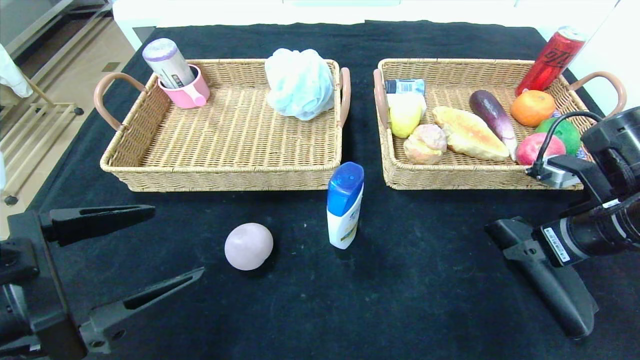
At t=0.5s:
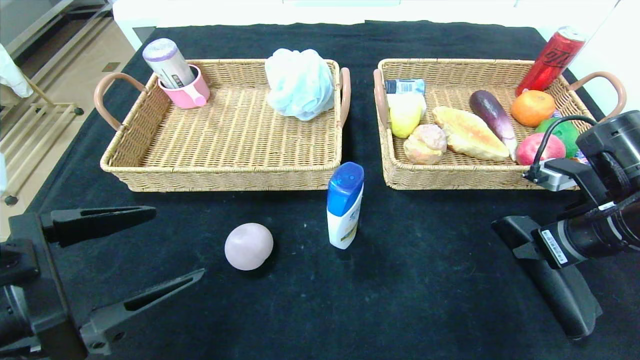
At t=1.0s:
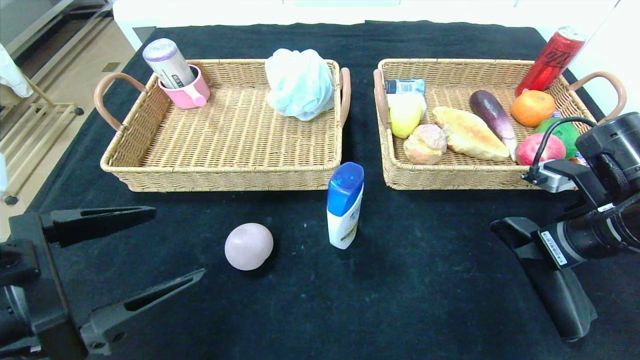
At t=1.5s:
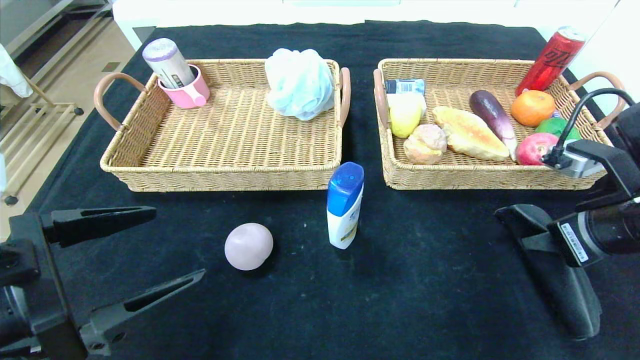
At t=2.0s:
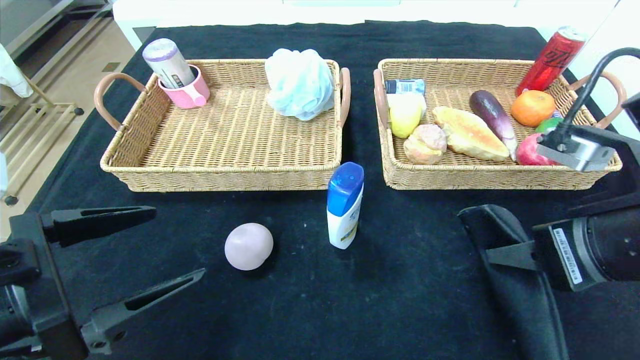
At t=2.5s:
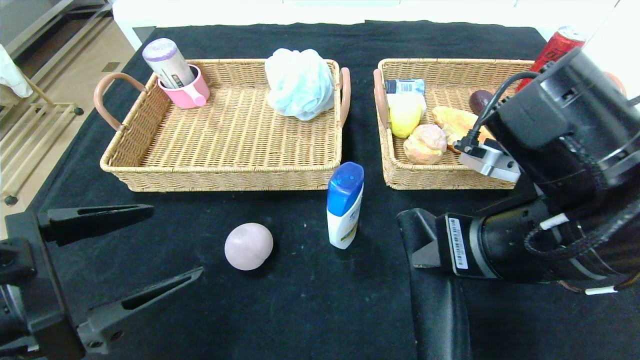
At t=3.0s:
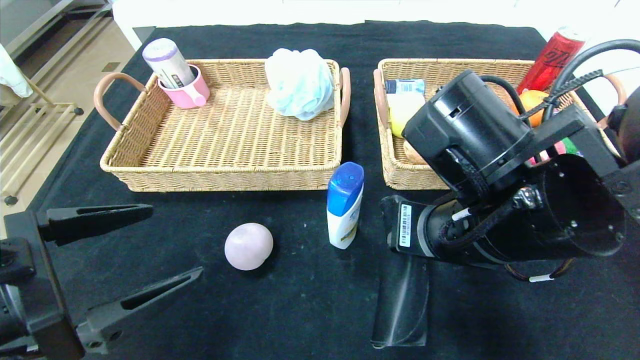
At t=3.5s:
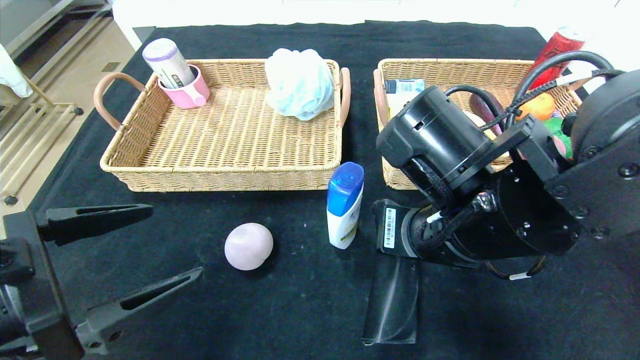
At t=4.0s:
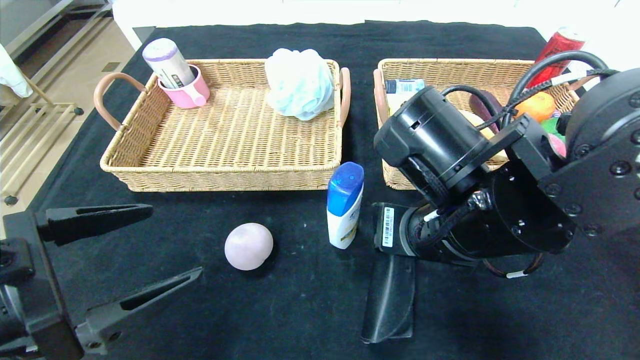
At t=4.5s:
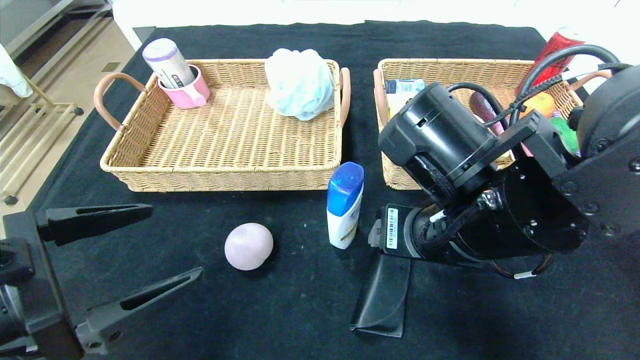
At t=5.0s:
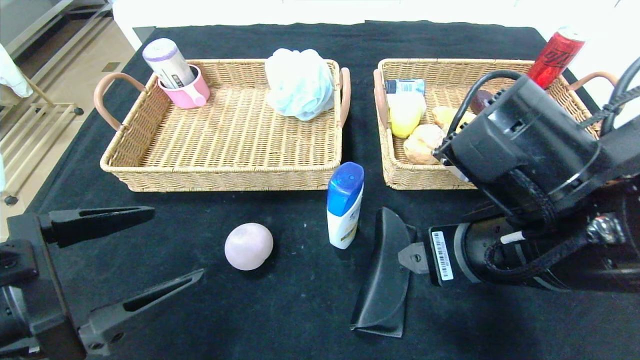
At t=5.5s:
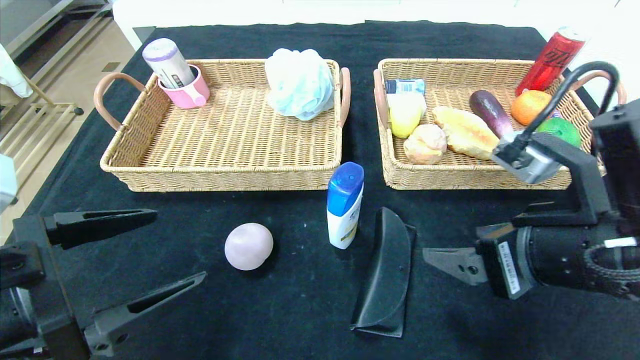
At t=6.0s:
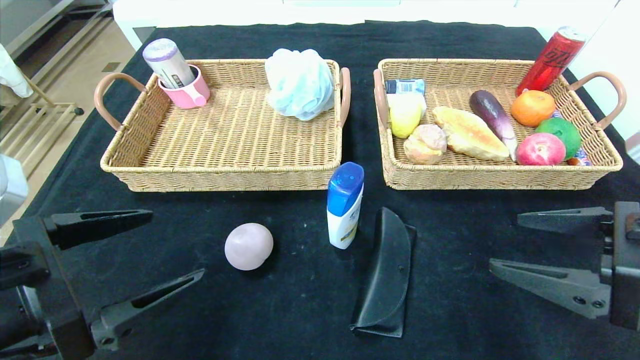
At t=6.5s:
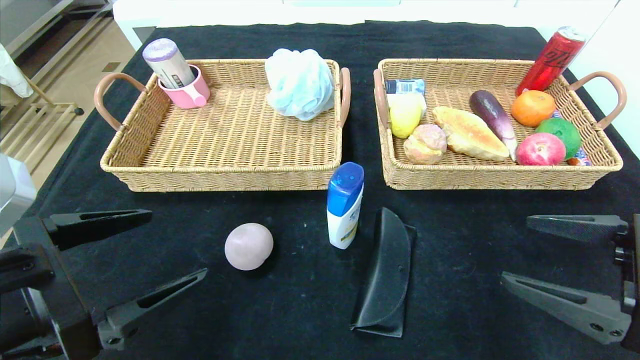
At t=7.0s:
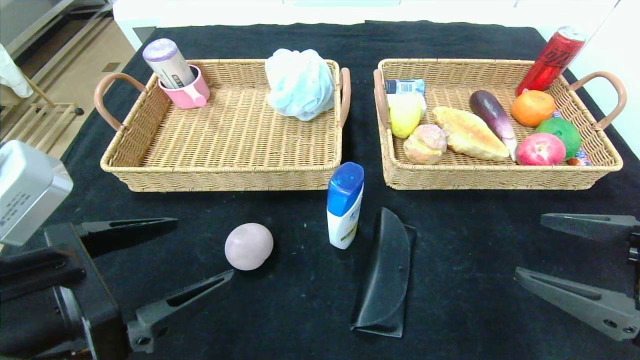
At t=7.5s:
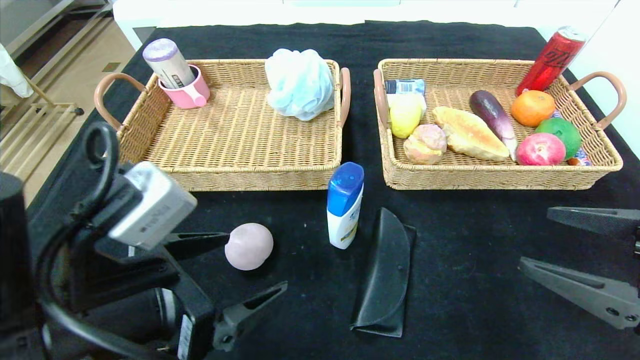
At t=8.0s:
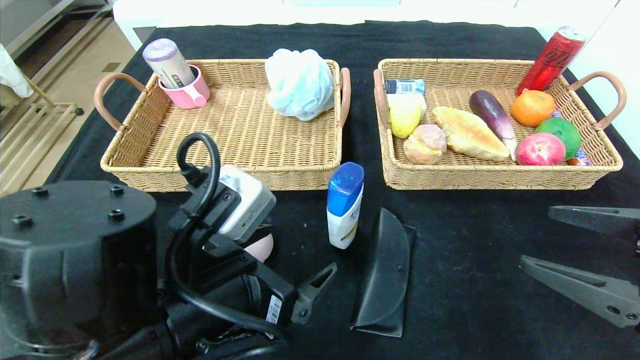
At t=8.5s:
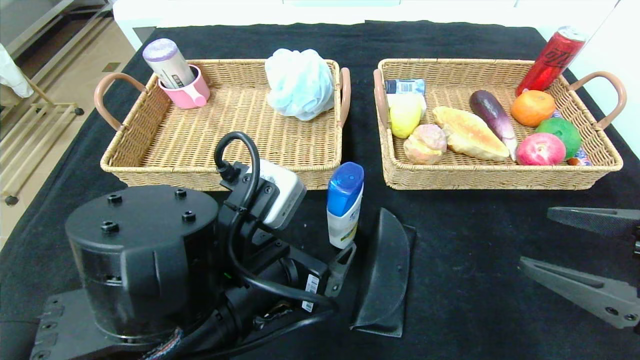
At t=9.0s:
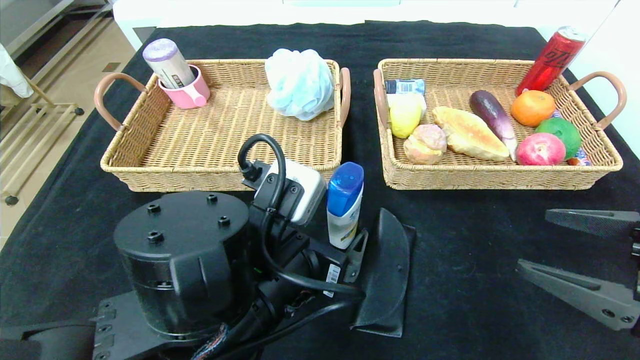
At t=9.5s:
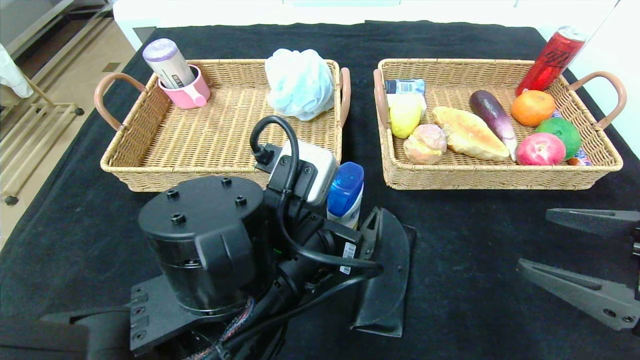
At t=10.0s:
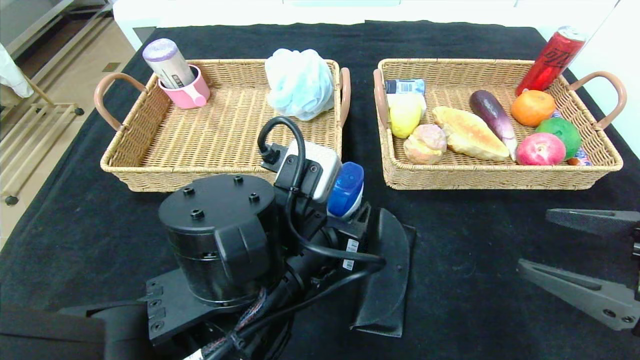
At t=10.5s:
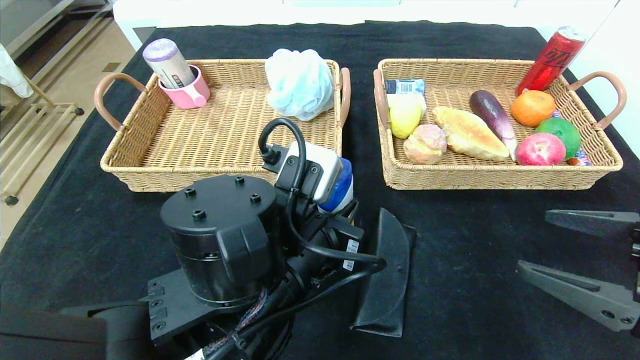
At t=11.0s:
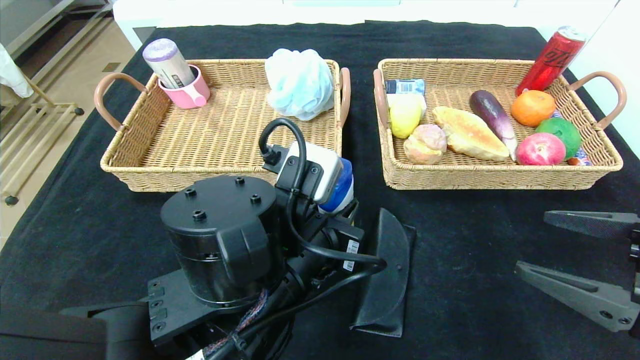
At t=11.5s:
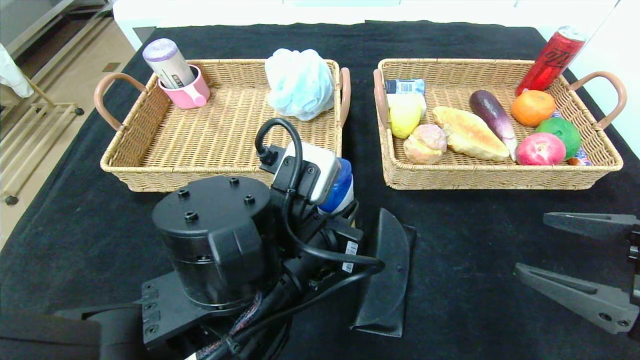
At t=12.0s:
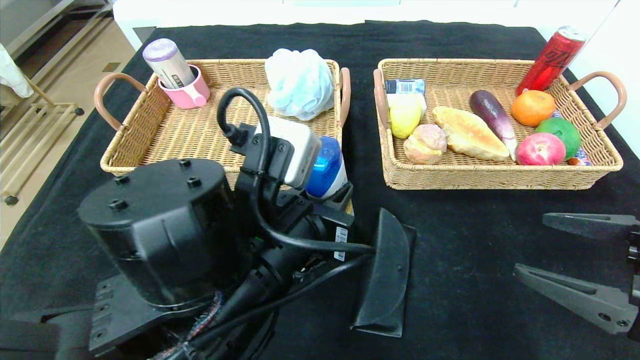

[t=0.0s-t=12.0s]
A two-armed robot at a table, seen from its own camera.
Step, t=0.0s to t=5.5s: Place the glasses case in the center of the table.
t=0.0s to t=2.0s: The right gripper heads to the left, backward and upward, covering some 10 cm, and closes its fingers.
t=2.0s to t=4.0s: The right gripper is displaced to the left by approximately 10 cm.
t=4.0s to t=6.0s: The right gripper moves to the right and backward, roughly 20 cm, and opens its fingers.
t=6.0s to t=8.0s: The left gripper is displaced to the right by approximately 15 cm.
t=8.0s to t=10.0s: The left gripper goes some 5 cm to the right, and closes.
t=10.0s to t=12.0s: The left gripper closes.

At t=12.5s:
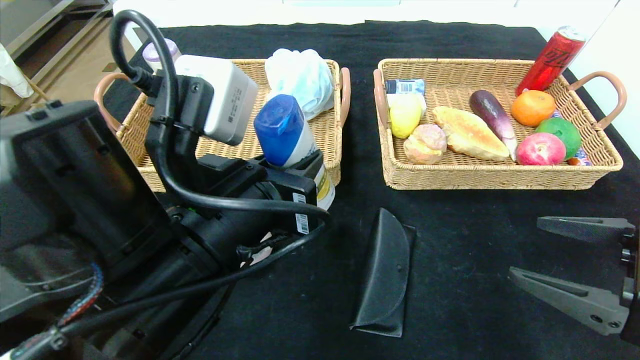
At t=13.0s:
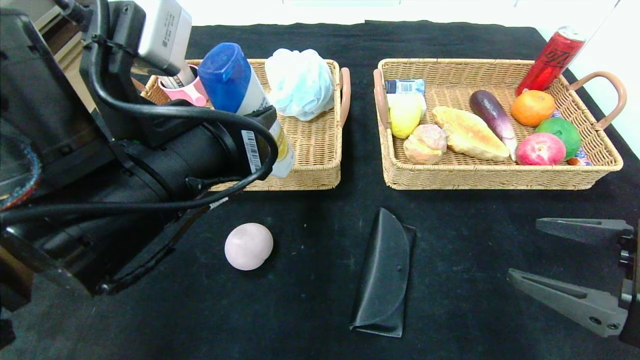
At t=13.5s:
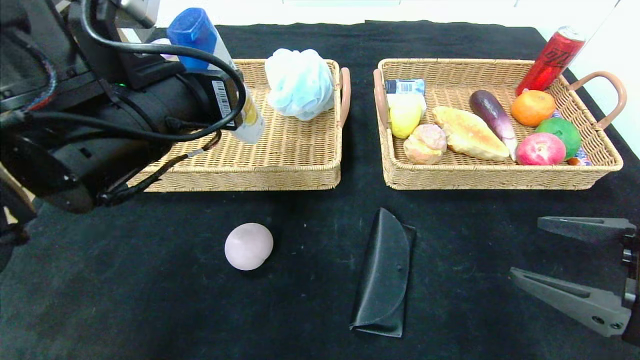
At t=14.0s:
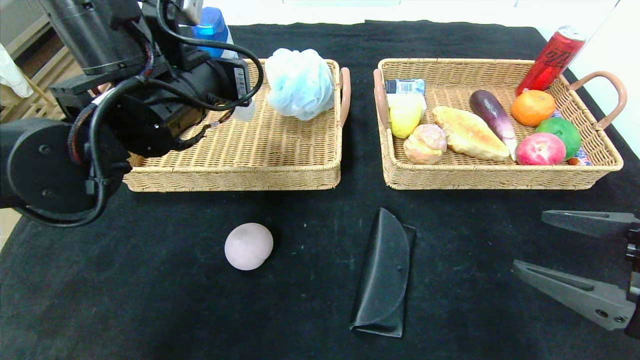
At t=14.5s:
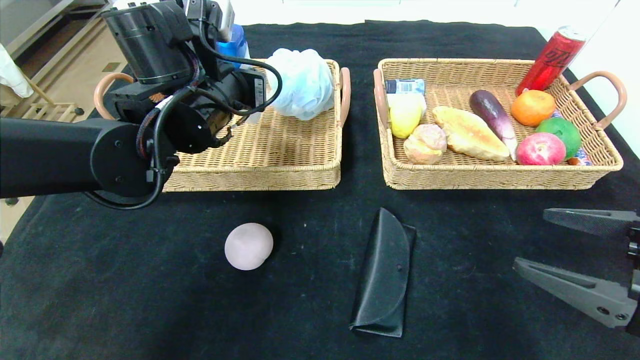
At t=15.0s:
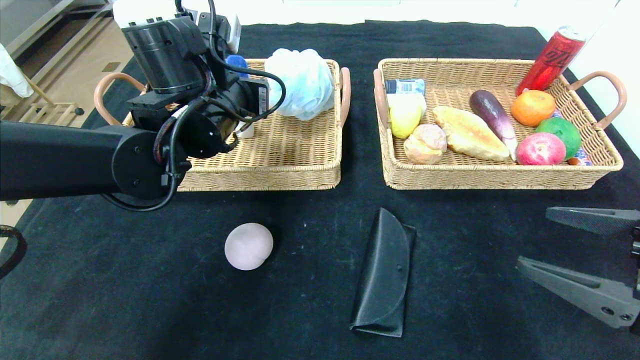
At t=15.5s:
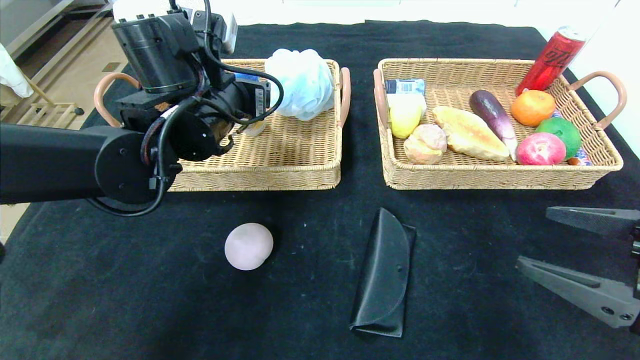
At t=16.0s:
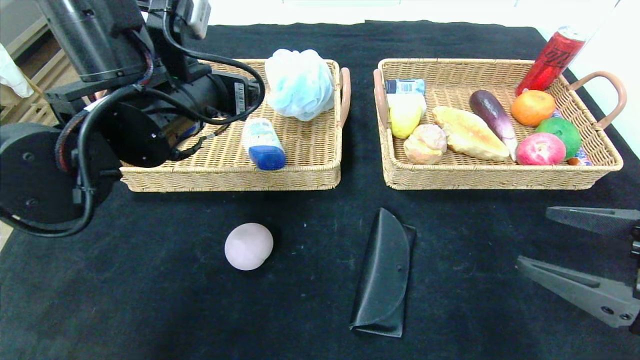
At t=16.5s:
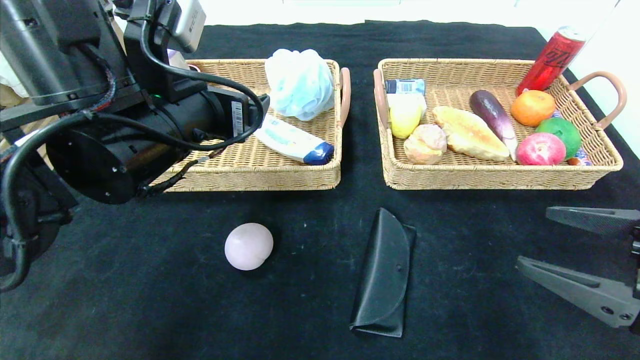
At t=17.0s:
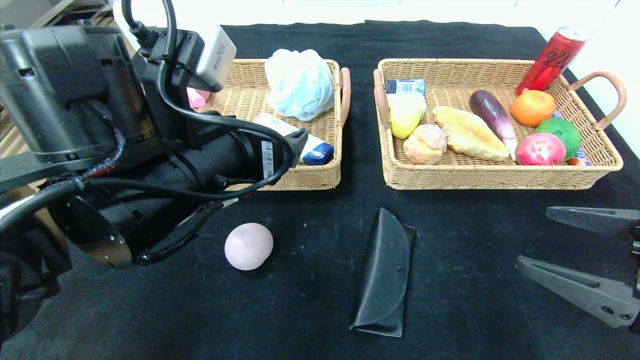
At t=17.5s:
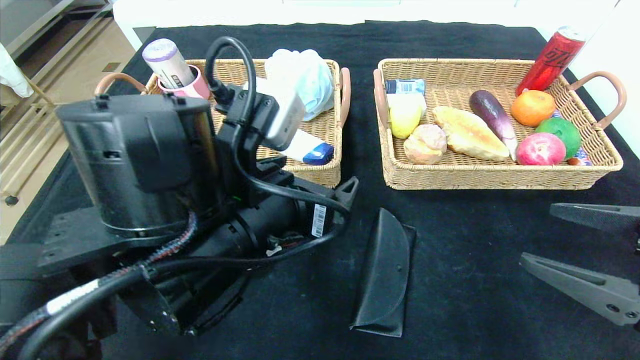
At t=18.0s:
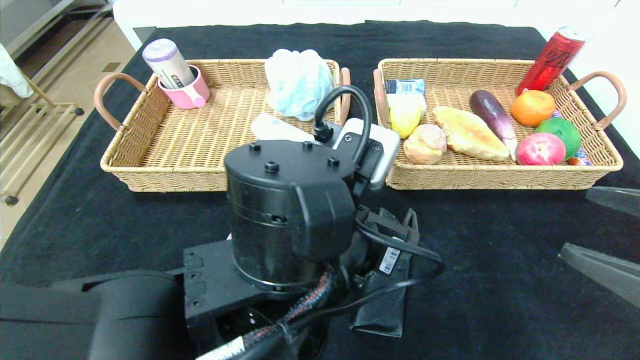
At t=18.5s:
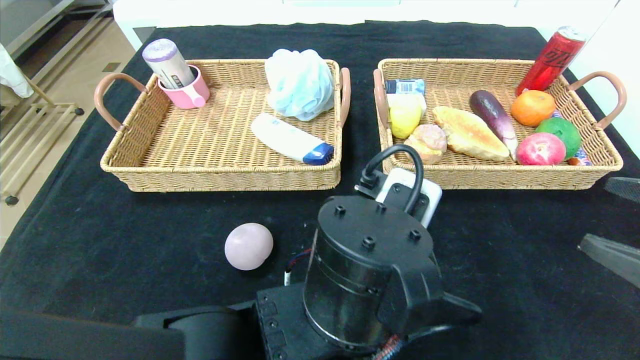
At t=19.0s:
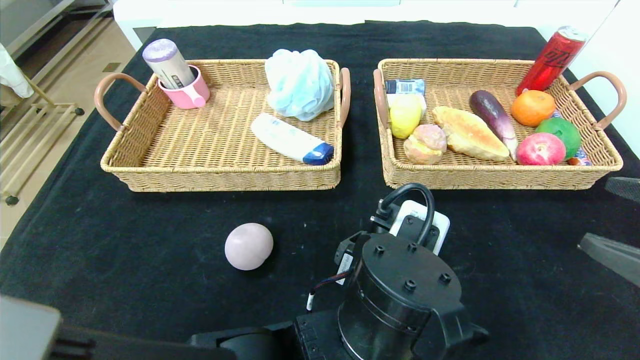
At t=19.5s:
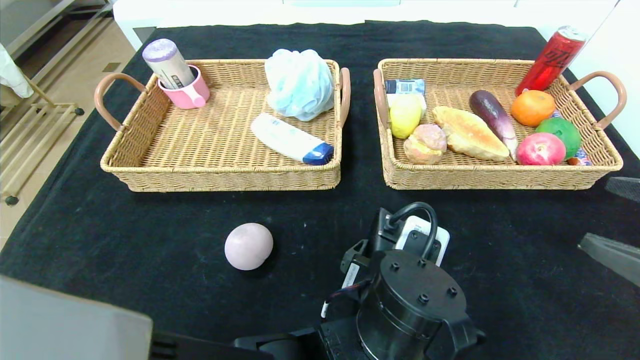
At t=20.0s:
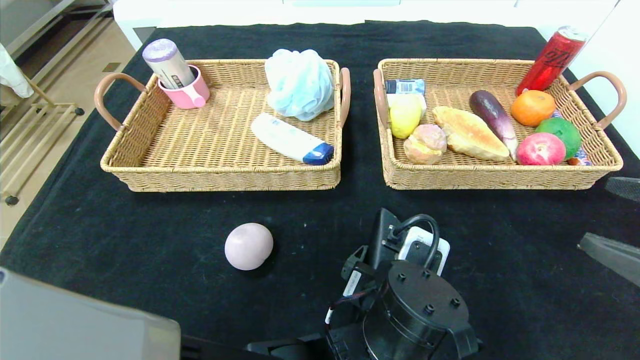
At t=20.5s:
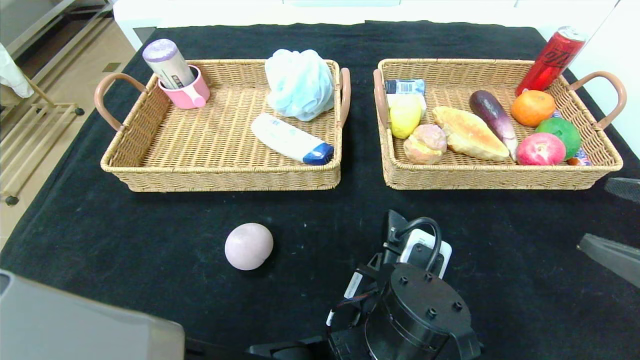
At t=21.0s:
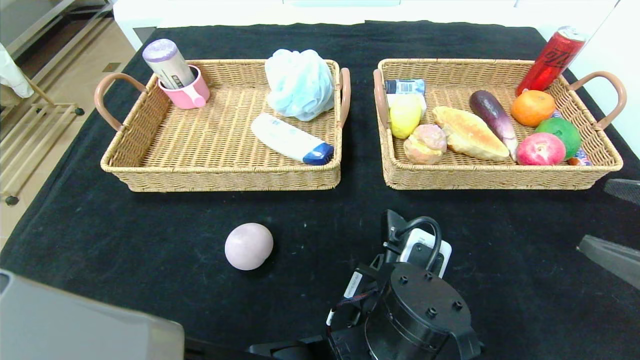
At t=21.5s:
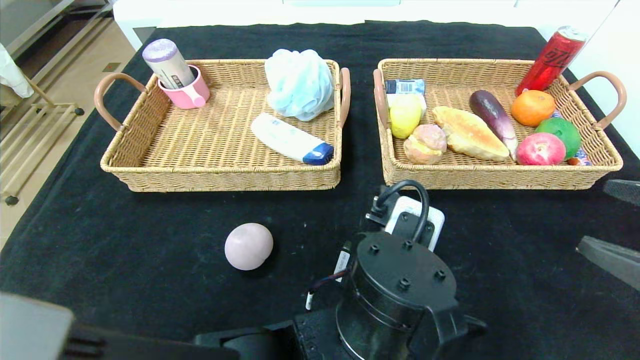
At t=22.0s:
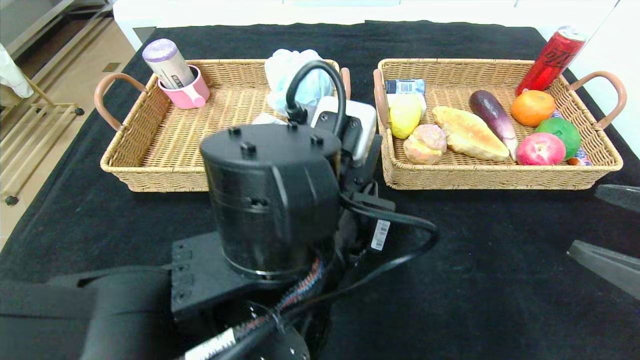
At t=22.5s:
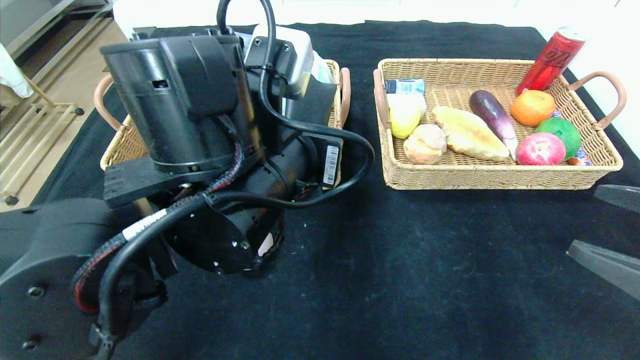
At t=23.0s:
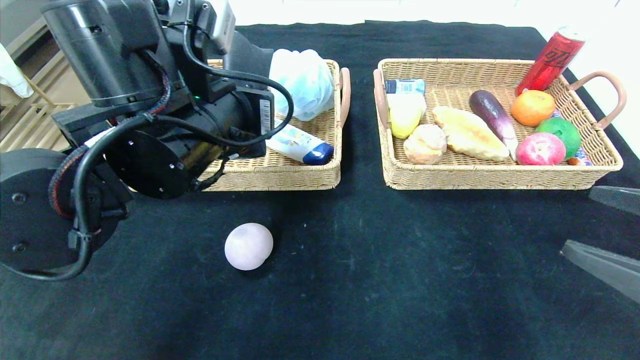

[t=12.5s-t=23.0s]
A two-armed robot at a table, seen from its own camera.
Step, t=12.5s to t=17.5s: Pick up the shampoo and put it in the left basket.
t=12.5s to t=14.5s: The left gripper moves forward, some 20 cm.
t=14.5s to t=16.5s: The left gripper shifts some 10 cm backward, and opens up.
t=16.5s to t=19.0s: The left gripper shifts roughly 25 cm to the right, downward and backward.
t=19.0s to t=21.0s: The left gripper closes.
t=21.0s to t=23.0s: The left gripper travels to the left, upward and forward by some 25 cm.
